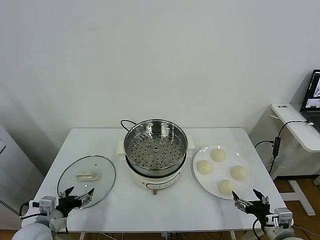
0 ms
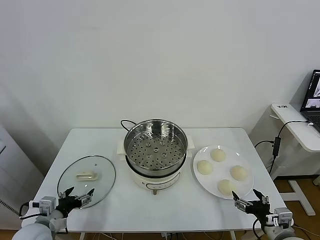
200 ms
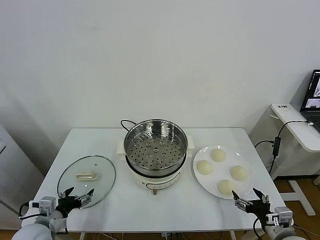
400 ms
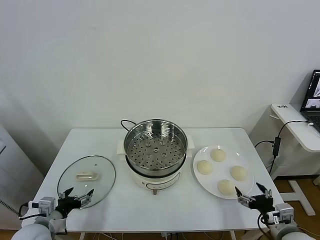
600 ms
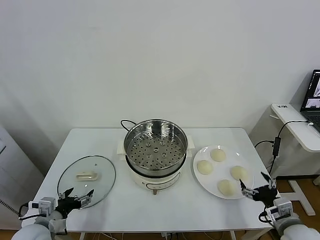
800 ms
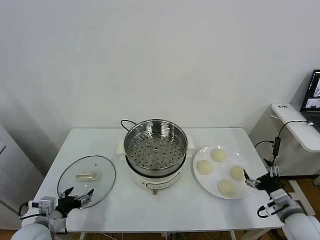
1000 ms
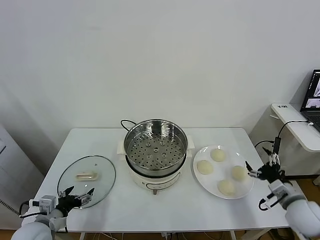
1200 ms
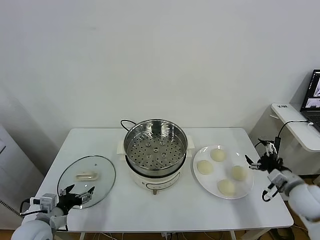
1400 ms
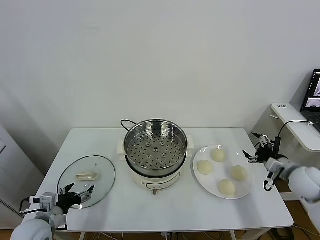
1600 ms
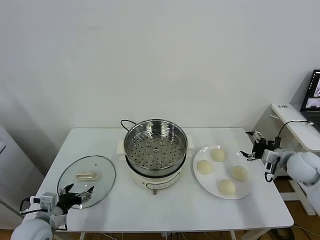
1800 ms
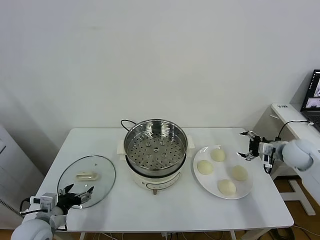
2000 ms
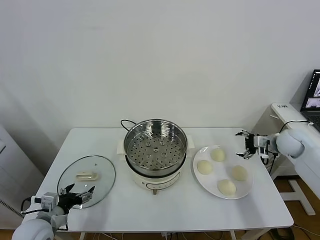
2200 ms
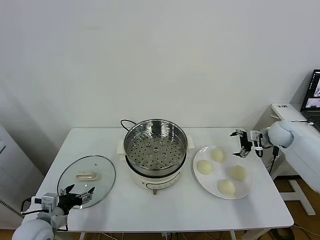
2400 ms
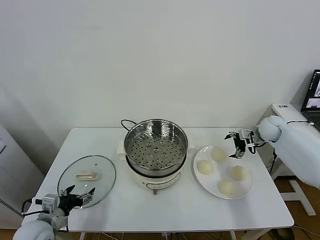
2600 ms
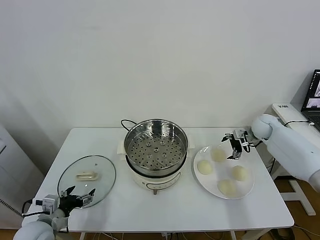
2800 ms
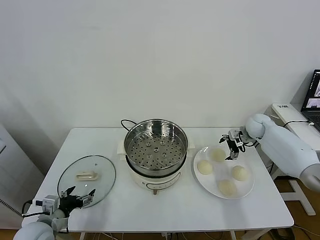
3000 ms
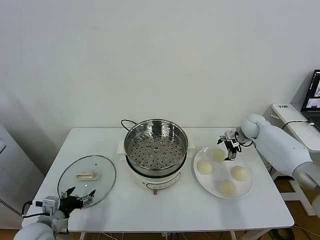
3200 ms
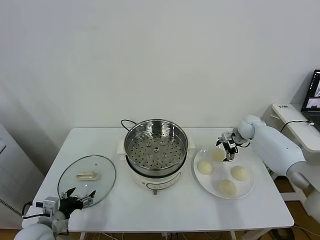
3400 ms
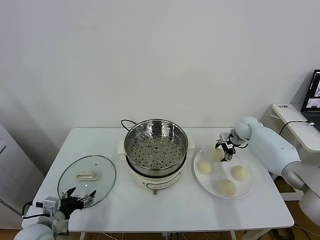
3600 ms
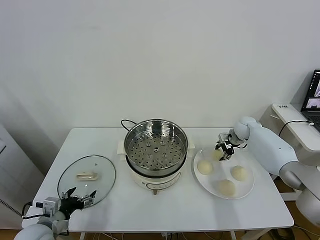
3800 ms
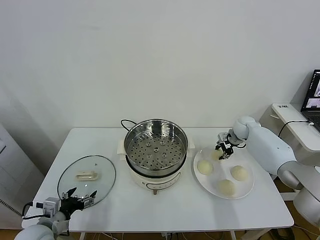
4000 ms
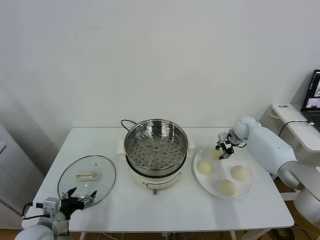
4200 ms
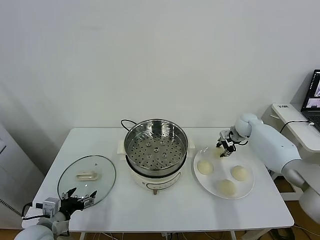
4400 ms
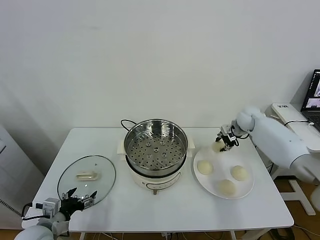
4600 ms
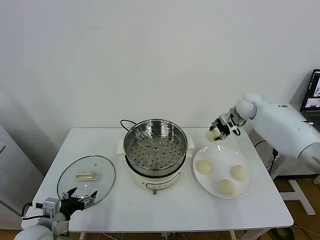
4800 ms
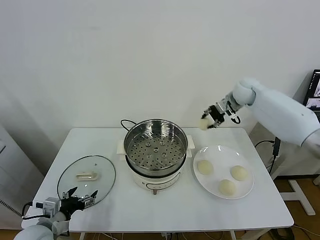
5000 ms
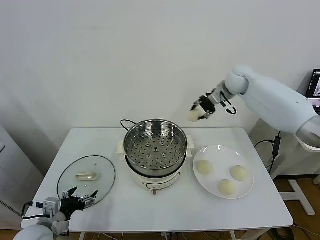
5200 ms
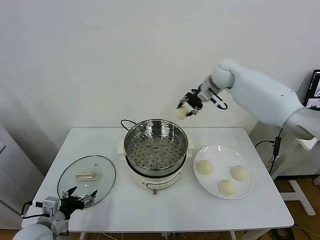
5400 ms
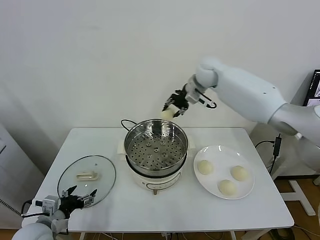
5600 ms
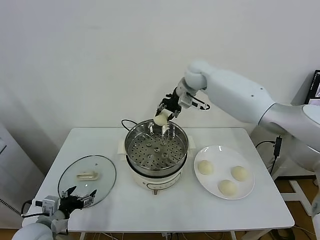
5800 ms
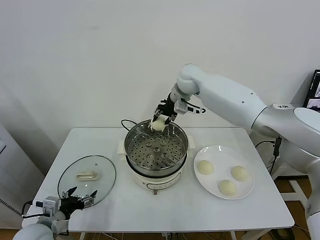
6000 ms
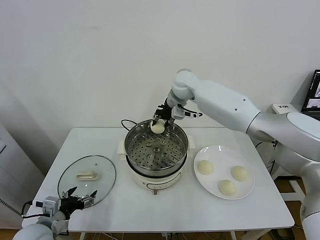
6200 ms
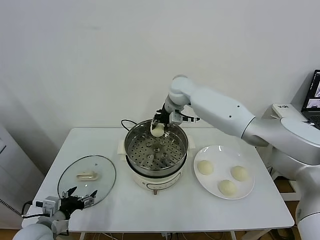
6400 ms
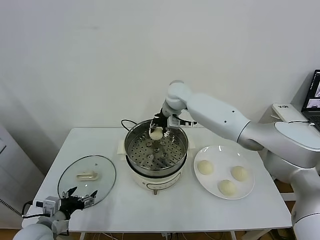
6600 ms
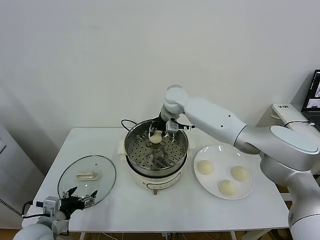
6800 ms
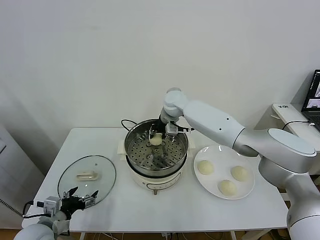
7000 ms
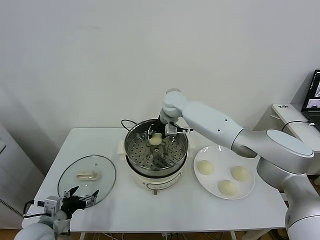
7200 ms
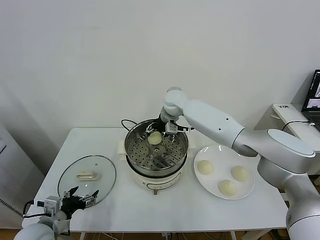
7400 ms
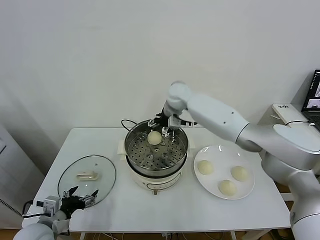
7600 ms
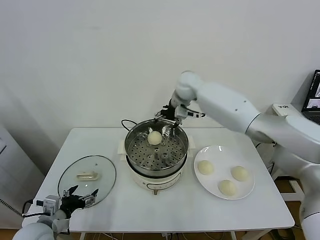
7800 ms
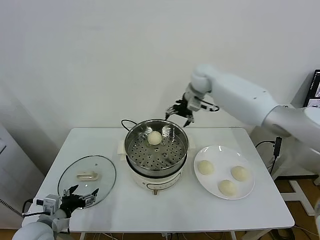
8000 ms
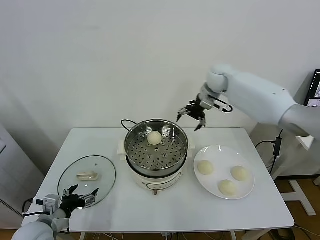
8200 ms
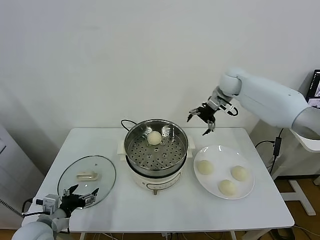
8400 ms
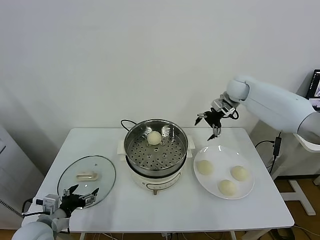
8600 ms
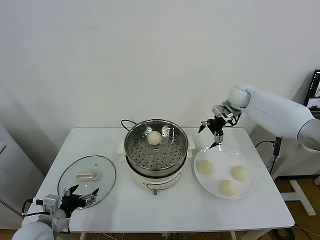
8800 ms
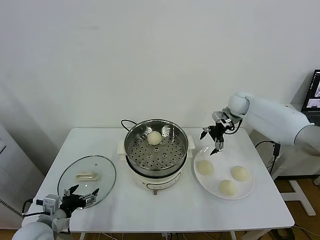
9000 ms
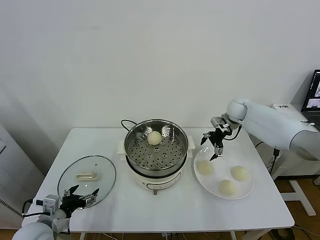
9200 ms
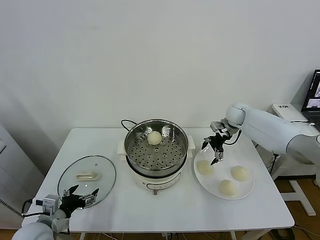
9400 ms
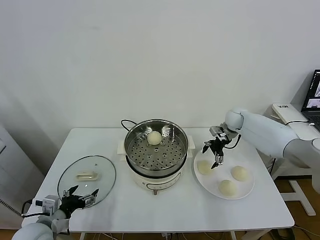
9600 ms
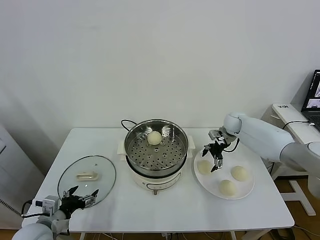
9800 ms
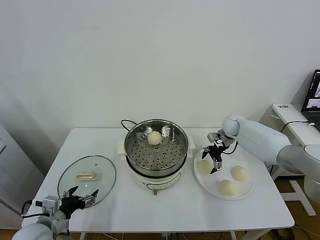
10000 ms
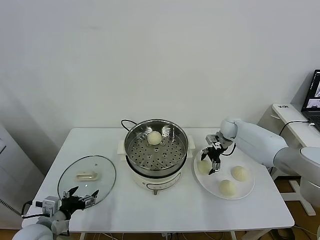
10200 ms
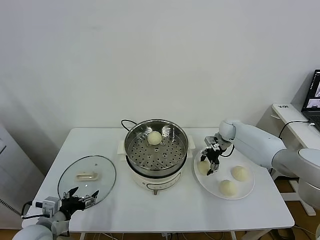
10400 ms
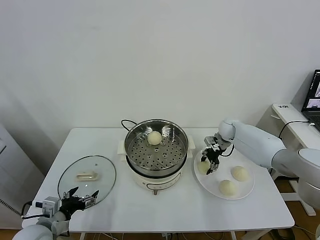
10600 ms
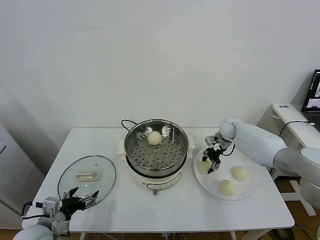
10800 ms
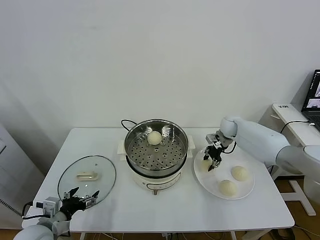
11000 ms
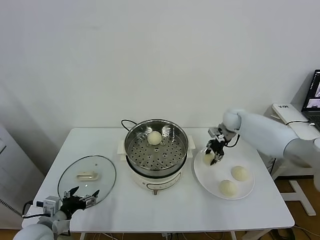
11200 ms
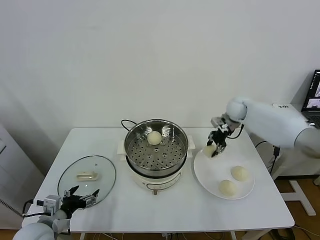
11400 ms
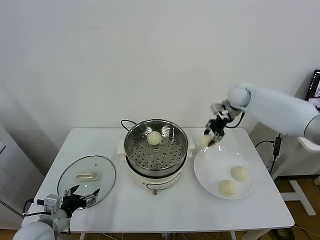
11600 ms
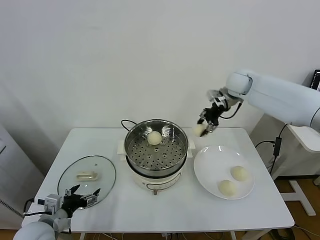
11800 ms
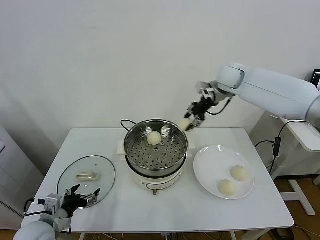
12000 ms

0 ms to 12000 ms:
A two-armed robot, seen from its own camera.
Task of the whole recording: take steamed baozi put them in steamer.
Step, 0 ms to 3600 ms: Grasp the baozi in the plate with right gripper.
Step, 3800 ms to 7400 ms: Place the baozi on the steamer with right gripper.
Step, 7600 ms to 10400 ms: Grasp the baozi in the plate with right gripper.
1600 ms to 3000 ms: The right gripper is displaced forward by some 20 cm.
3000 ms to 4400 ms: The right gripper closes.
4400 ms to 6000 ms: The right gripper moves to the left and upward, roughly 35 cm.
6000 ms to 7600 ms: The right gripper opens its fingers.
7600 ms to 9000 ms: The right gripper travels to the right by some 25 cm.
9000 ms to 10400 ms: The right gripper moves downward, approximately 10 cm, and closes up.
10400 ms to 12000 ms: The right gripper goes approximately 25 cm upward, and closes up.

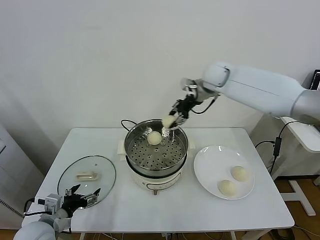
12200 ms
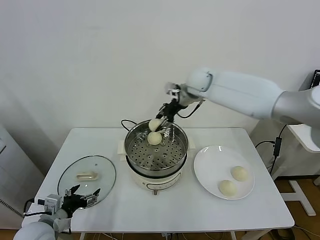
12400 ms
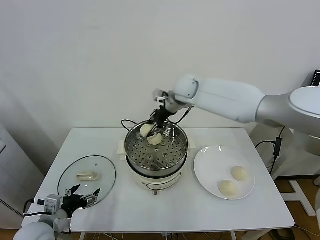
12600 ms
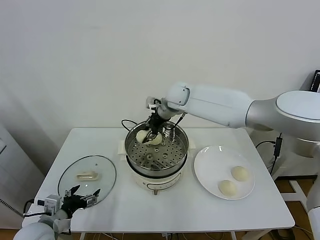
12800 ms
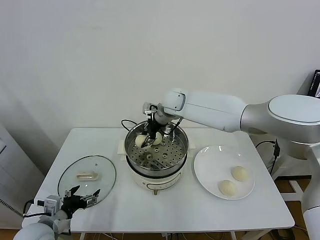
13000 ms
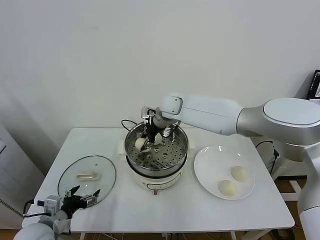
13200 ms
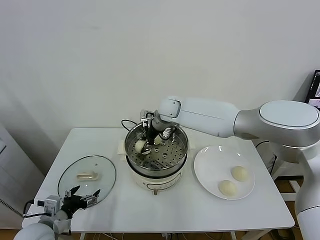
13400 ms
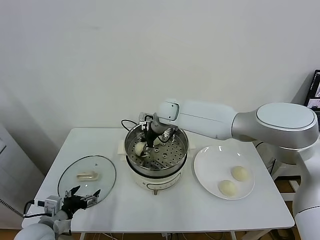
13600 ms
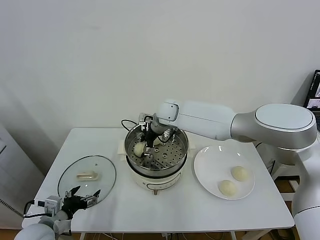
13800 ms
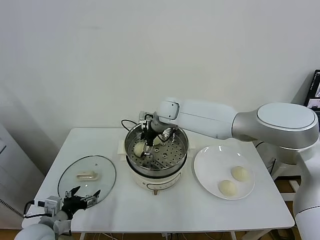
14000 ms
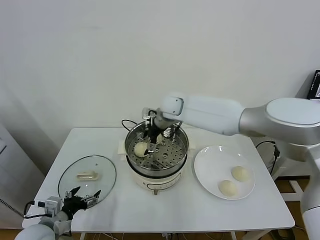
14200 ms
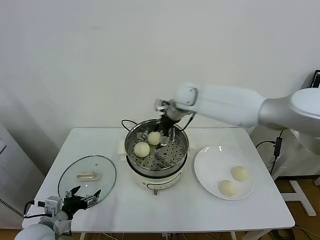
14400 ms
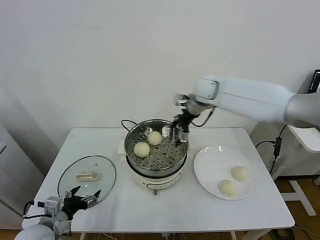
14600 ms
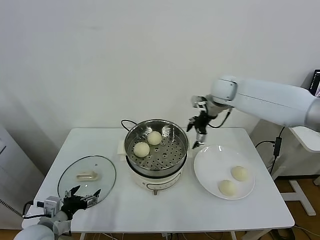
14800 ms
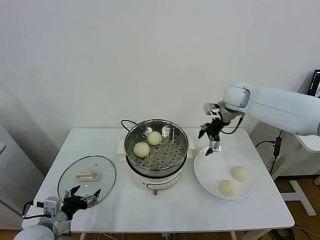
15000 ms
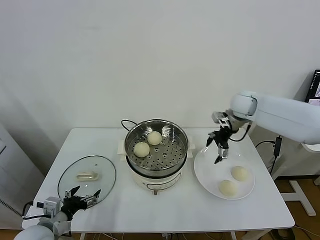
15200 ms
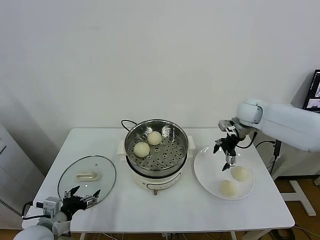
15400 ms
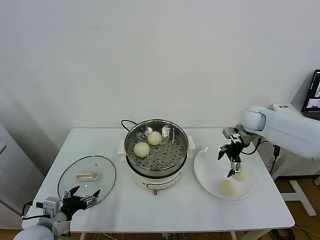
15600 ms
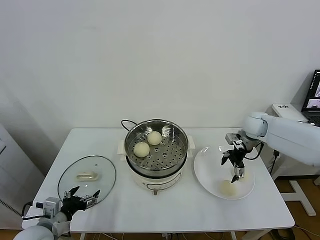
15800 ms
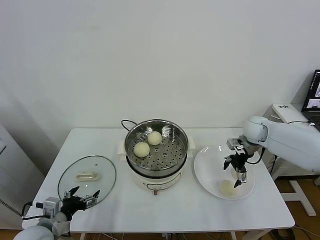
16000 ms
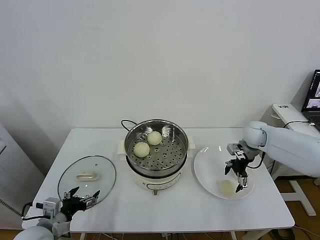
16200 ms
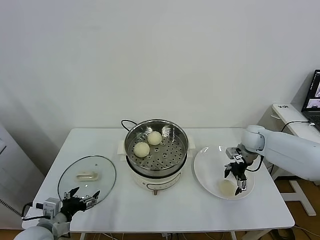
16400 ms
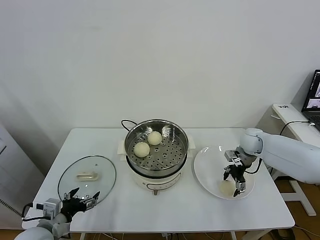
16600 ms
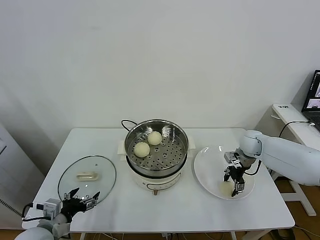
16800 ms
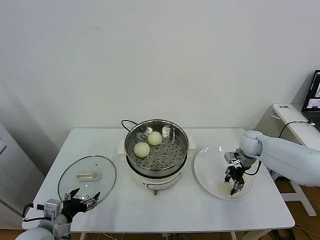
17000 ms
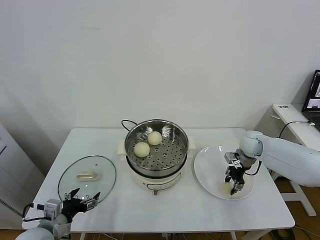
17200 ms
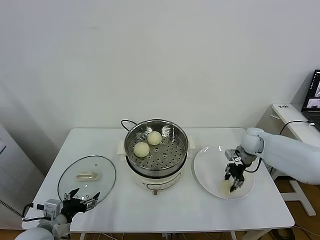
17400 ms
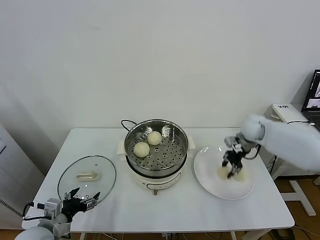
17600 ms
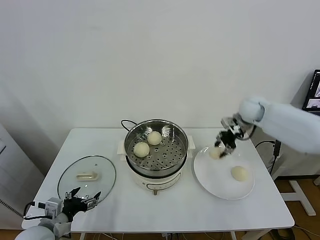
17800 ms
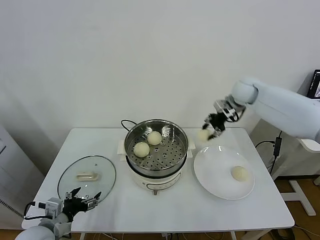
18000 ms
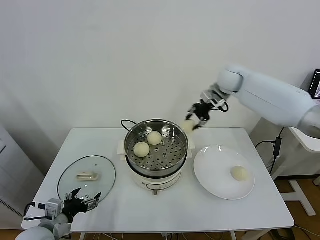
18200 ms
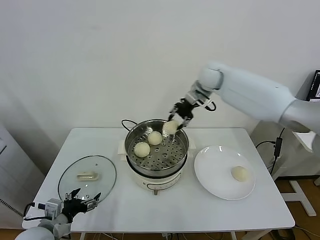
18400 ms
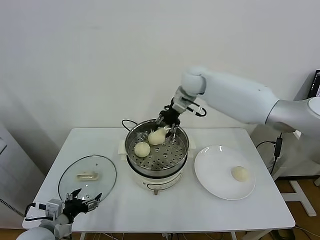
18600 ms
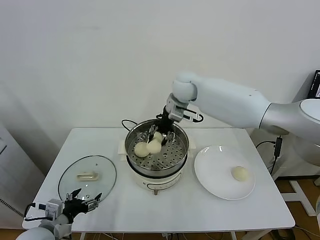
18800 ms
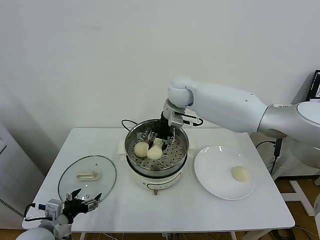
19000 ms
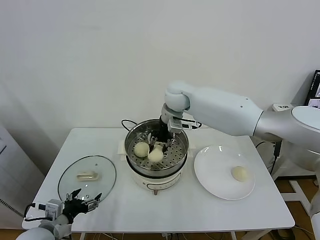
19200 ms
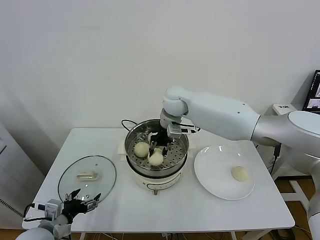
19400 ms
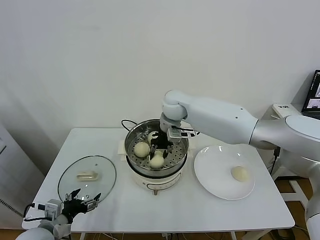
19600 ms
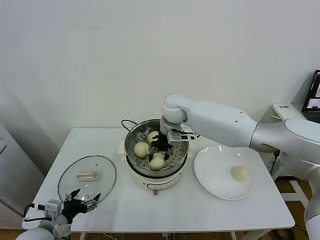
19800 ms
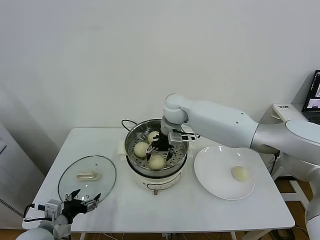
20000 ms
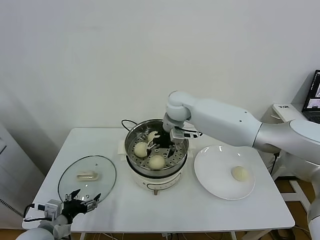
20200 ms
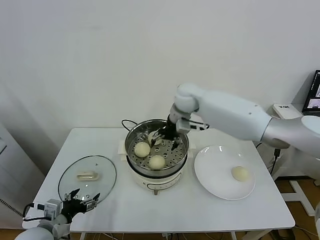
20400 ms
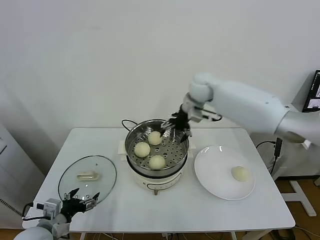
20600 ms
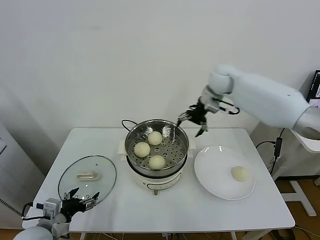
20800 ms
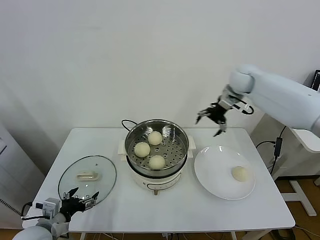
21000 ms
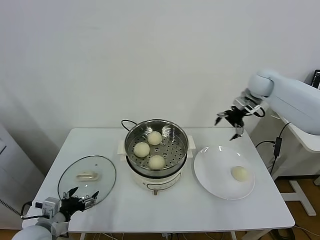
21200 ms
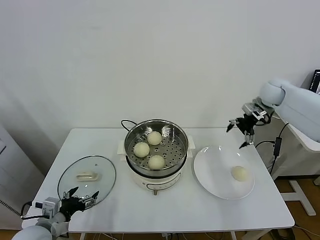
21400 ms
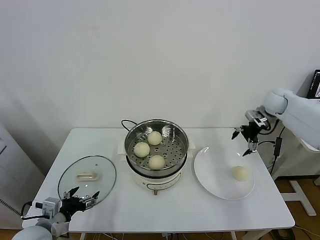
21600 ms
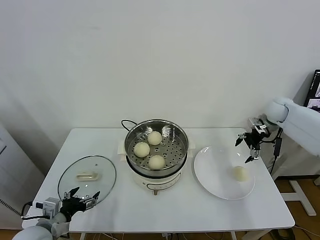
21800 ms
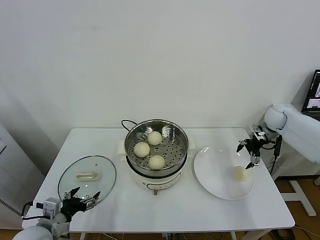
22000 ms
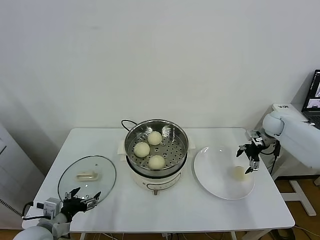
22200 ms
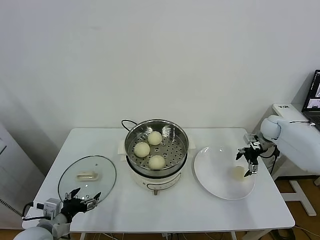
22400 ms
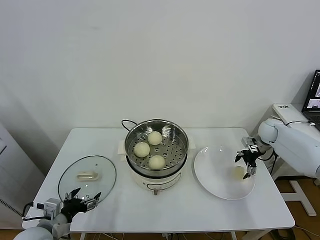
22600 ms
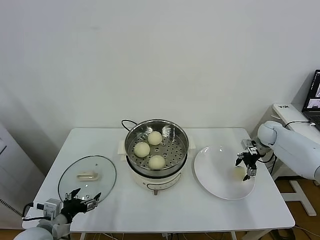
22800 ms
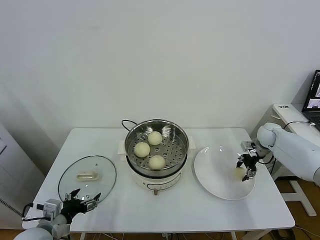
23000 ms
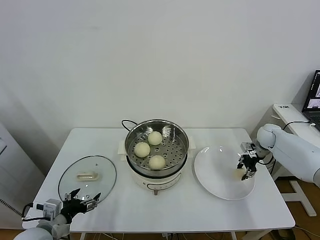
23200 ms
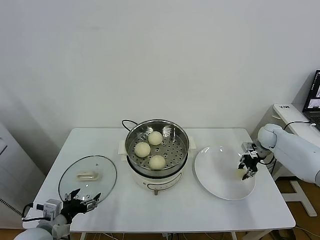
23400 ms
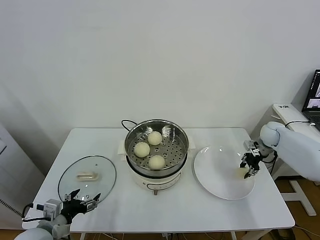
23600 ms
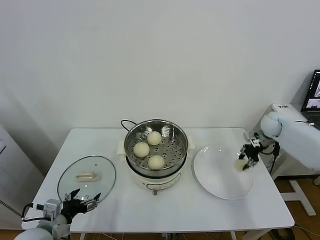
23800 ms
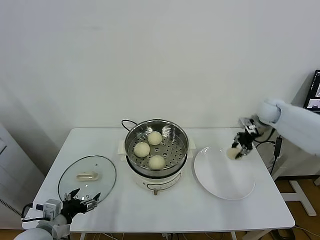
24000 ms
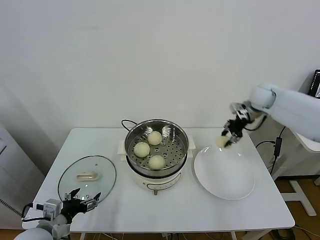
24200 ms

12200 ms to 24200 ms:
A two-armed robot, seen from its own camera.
Task of the whole recording: take steamed baozi put them in steamer.
Step, 14200 ms to 16800 ms: Grasp the baozi in the plate with right gripper.
Step, 17000 ms to 20000 ms: Place the baozi on the steamer with right gripper.
Step, 20400 ms to 23000 ms: Grasp the baozi in the plate with right gripper.
12200 ms to 13800 ms: The right gripper heads to the left and downward, covering approximately 20 cm, and opens.
13800 ms to 15200 ms: The right gripper goes approximately 25 cm to the right.
15200 ms to 16600 ms: The right gripper is displaced downward by about 15 cm.
16600 ms to 18200 ms: The right gripper travels upward, to the left and forward by roughly 30 cm, and closes.
18200 ms to 19800 ms: The right gripper shifts approximately 20 cm to the left and downward.
19800 ms to 21200 ms: The right gripper travels to the right by roughly 30 cm, and opens up.
21200 ms to 22600 ms: The right gripper is displaced downward and to the right by approximately 20 cm.
22600 ms to 24200 ms: The right gripper moves upward and to the left, approximately 20 cm, and closes.
